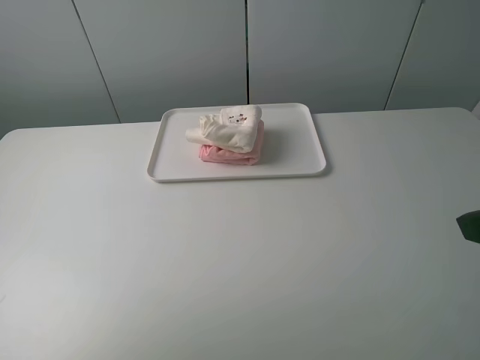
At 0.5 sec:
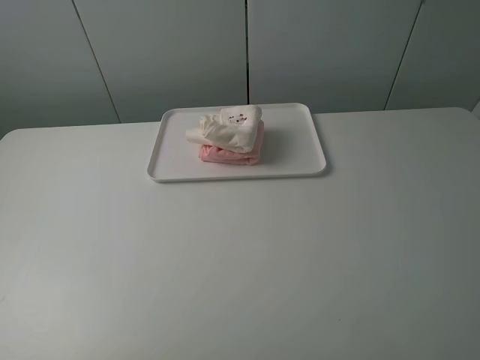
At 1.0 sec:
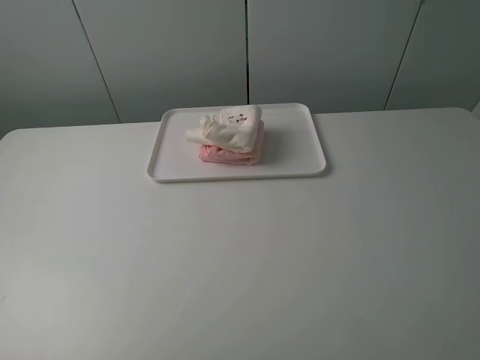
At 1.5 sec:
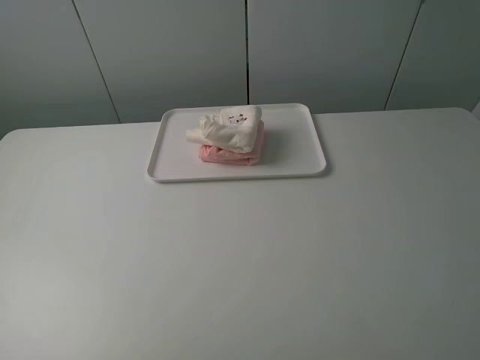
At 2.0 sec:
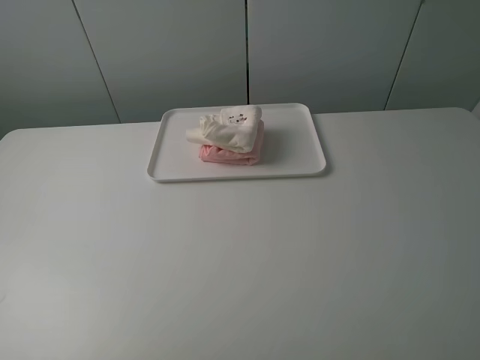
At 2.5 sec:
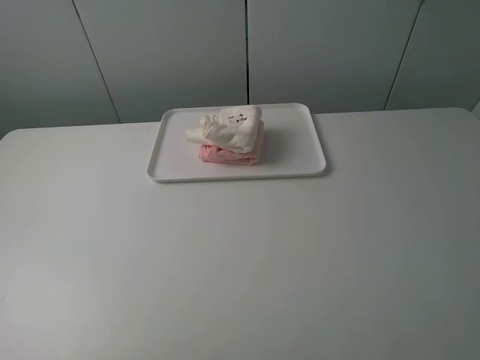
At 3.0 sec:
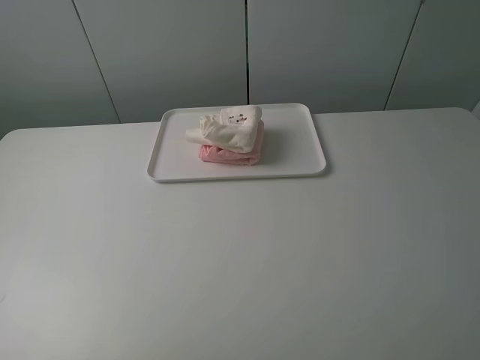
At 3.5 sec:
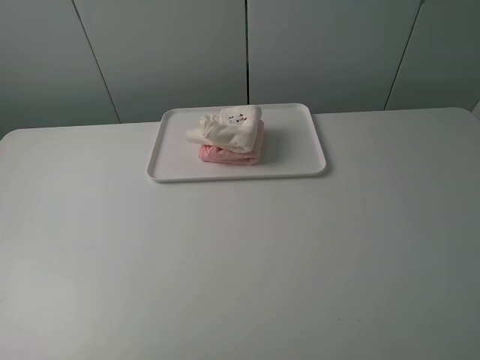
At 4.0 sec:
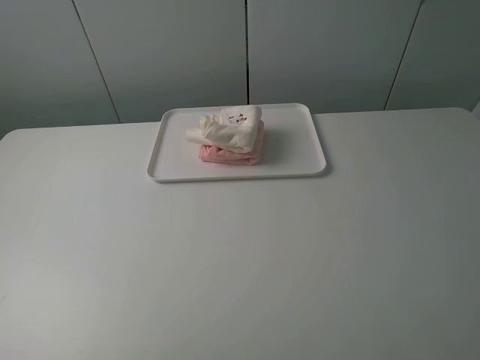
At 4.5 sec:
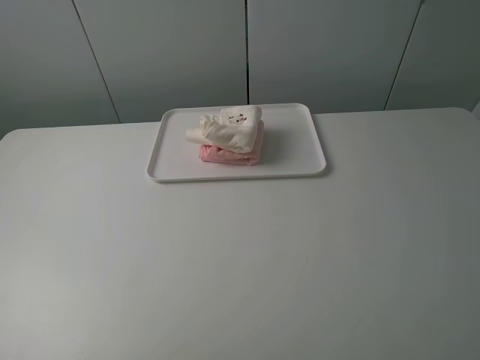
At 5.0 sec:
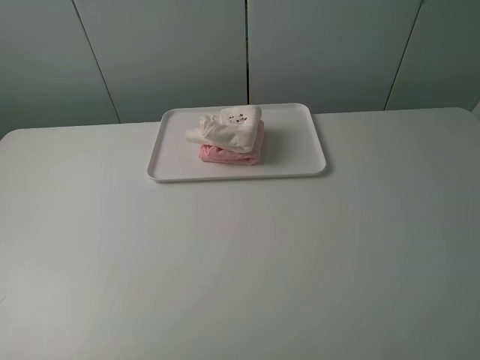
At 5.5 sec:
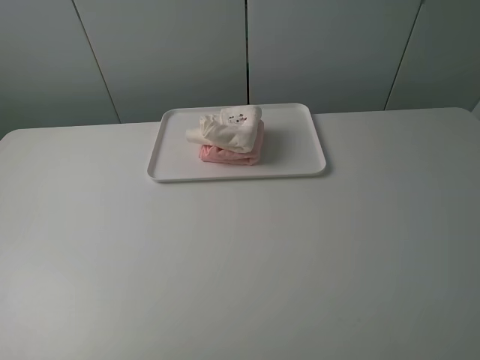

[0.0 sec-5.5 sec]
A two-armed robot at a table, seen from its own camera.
Task of the whole recording: fold one of the towels by two grippers and place it on the tray,then fold another towel by two grippers and place it on the folded towel.
0.0 sec to 2.0 sec: Both grippers travel together backward, some 10 cm.
3.5 sec to 5.5 sec: Neither gripper changes place.

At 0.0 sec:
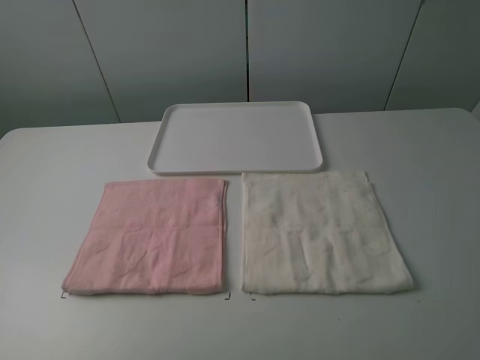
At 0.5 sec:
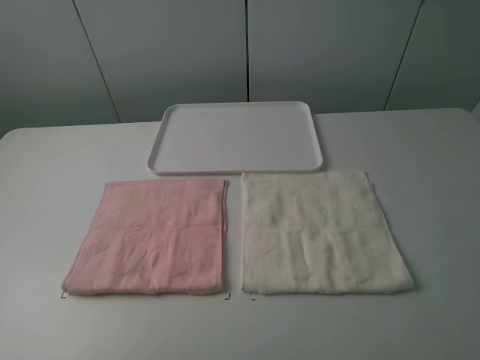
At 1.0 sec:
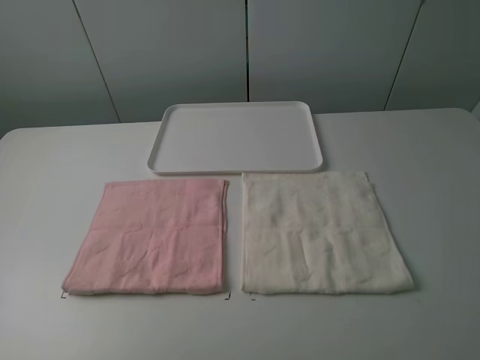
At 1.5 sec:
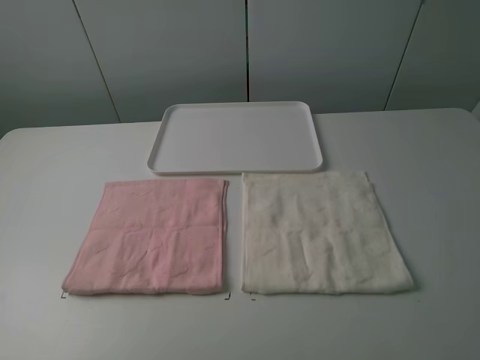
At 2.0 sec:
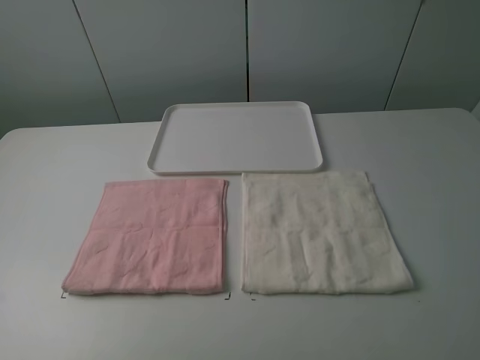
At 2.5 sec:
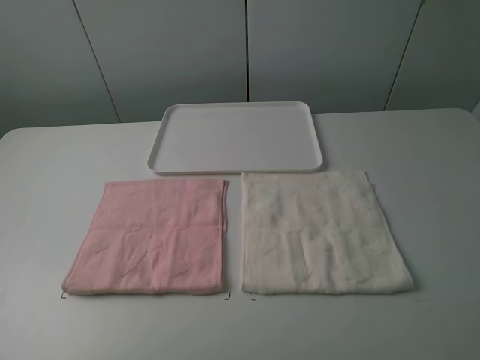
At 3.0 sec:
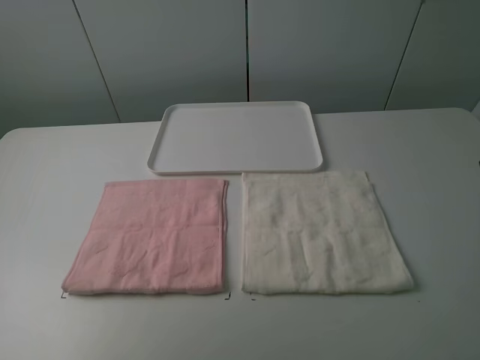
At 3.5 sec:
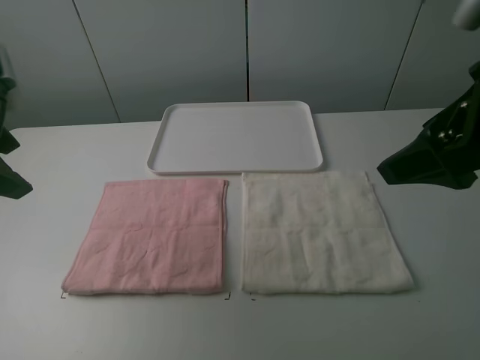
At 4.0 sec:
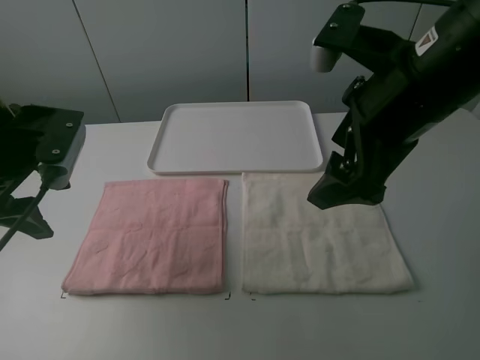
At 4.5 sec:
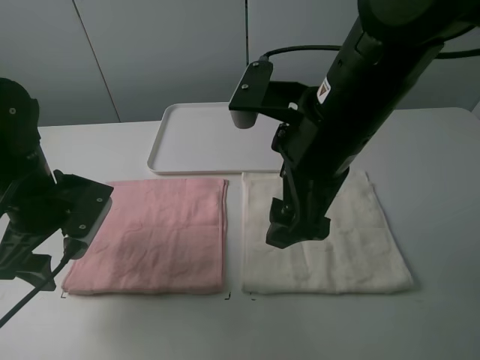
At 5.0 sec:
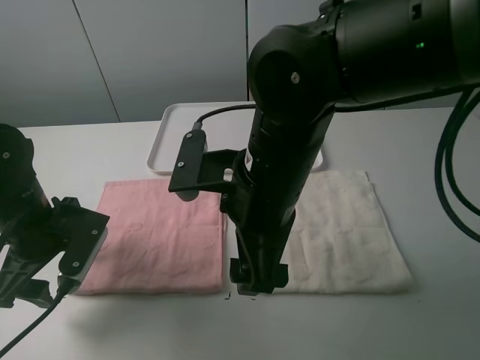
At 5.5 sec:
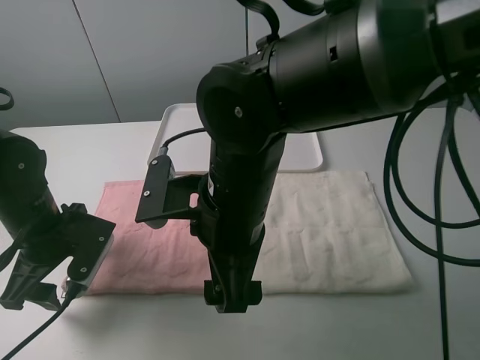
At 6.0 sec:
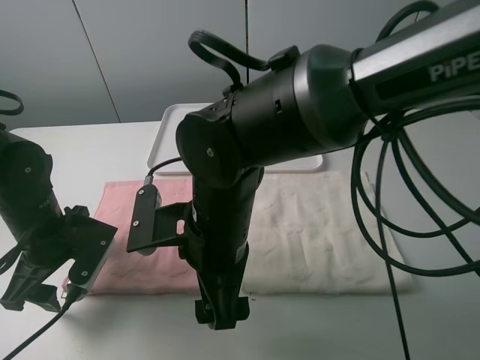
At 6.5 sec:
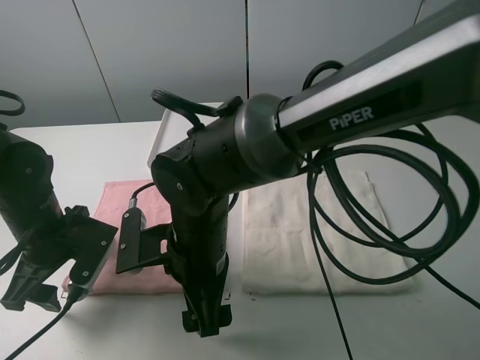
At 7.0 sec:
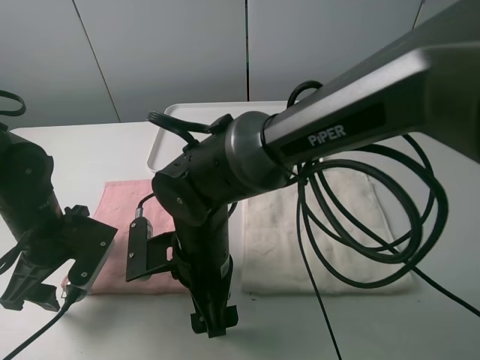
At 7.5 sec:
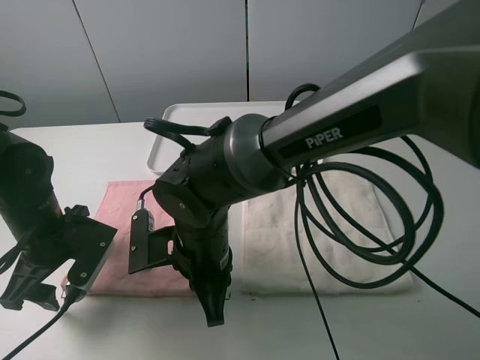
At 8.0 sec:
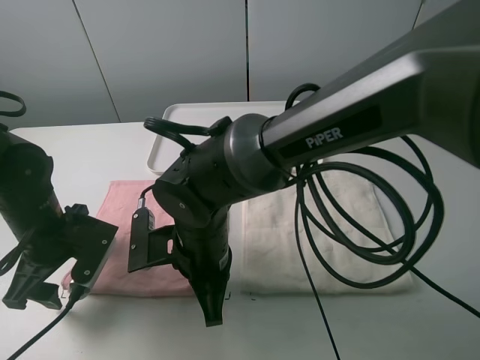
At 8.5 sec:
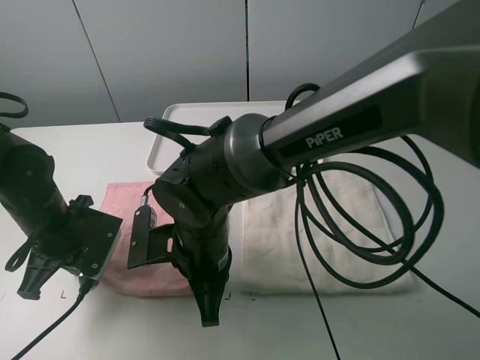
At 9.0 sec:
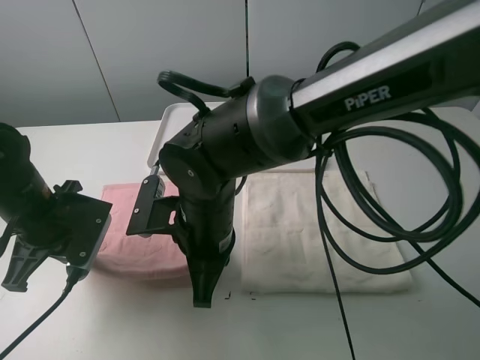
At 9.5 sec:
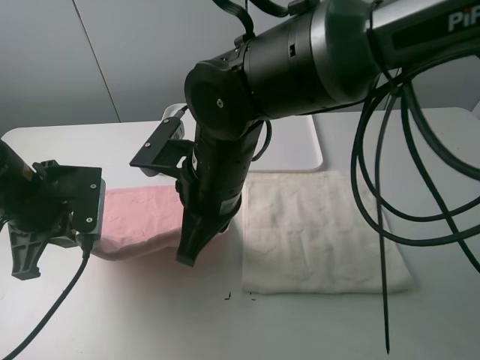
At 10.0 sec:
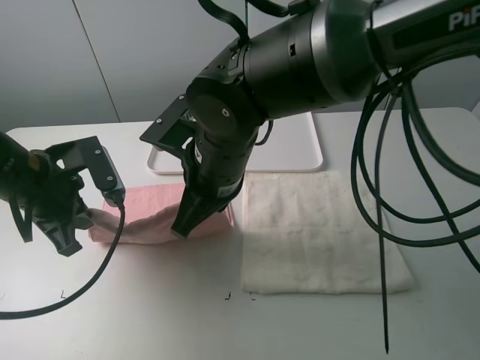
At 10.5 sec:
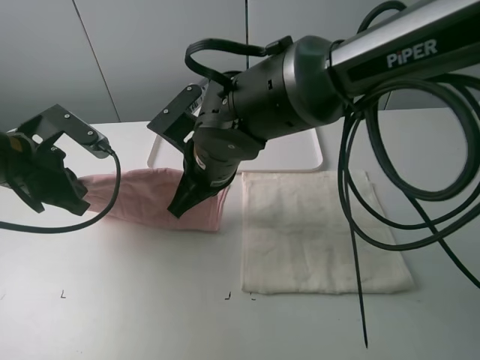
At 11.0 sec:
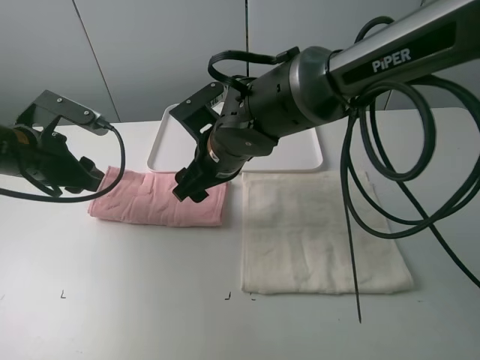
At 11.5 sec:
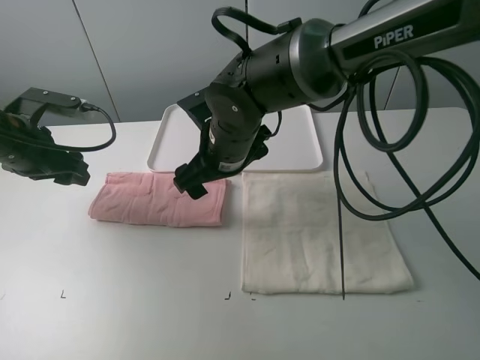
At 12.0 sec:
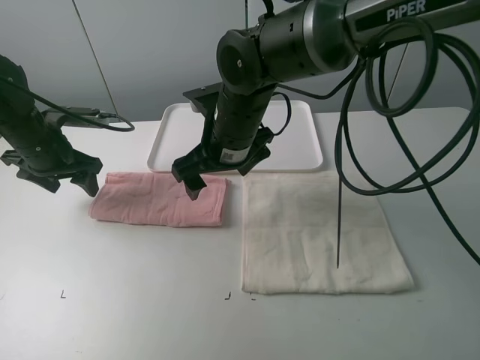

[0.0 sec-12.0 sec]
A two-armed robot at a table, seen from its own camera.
Task of the whole recording: fold one of the towels by two grippers and place it on the tray,then fold another towel by two grippers and place it on the folded towel.
Step, 0.0 sec to 8.0 sec: Grasp the pink towel with the left gripper.
Step, 8.5 sec to 11.0 sec: Fold the pink towel upwards with the left gripper.
0.0 sec to 2.0 sec: Both grippers stay put.
2.0 sec to 4.0 sec: The left gripper heads forward, covering approximately 25 cm. Meanwhile the right gripper heads forward and to the left, covering about 25 cm.
4.0 sec to 6.0 sec: The left gripper travels downward by about 10 cm; the right gripper moves to the left and downward, some 20 cm.
6.0 sec to 8.0 sec: The right gripper travels downward by some 5 cm, and closes.
8.0 sec to 10.0 sec: Both grippers travel together upward, roughly 10 cm. The left gripper closes up.
10.0 sec to 12.0 sec: The right gripper moves forward, about 5 cm, and opens. Meanwhile the left gripper goes roughly 15 cm forward and to the left, and opens up.

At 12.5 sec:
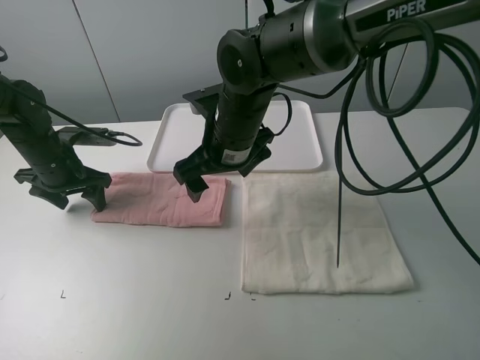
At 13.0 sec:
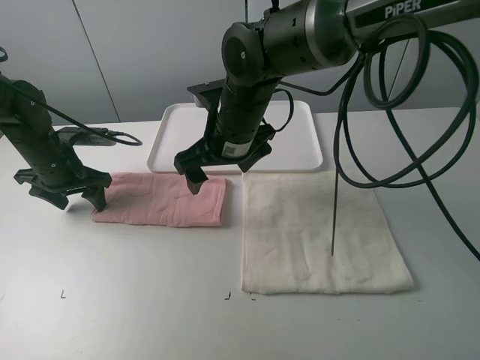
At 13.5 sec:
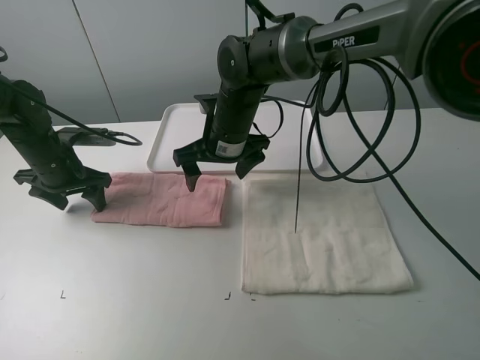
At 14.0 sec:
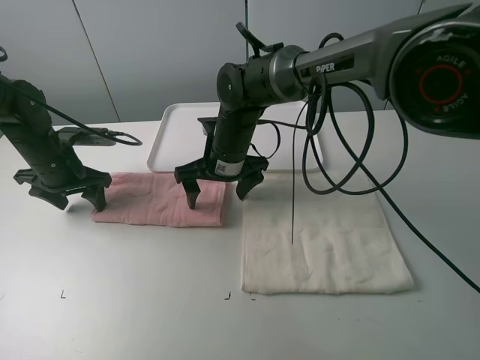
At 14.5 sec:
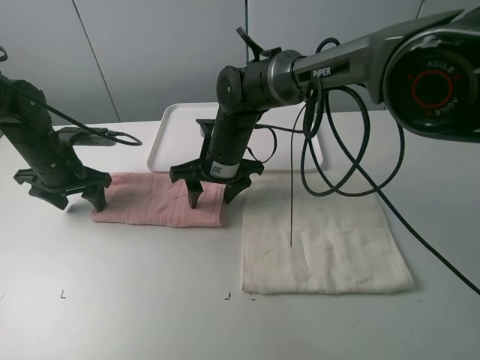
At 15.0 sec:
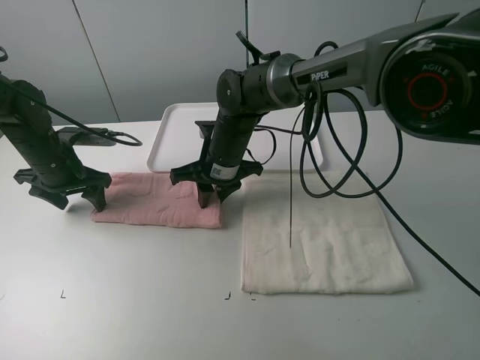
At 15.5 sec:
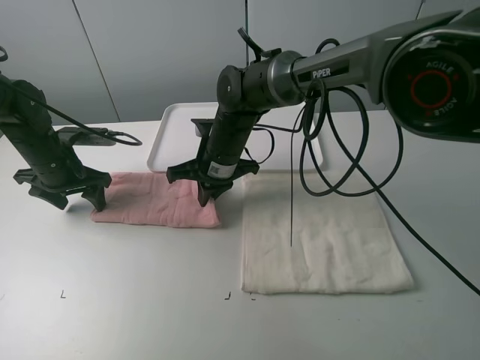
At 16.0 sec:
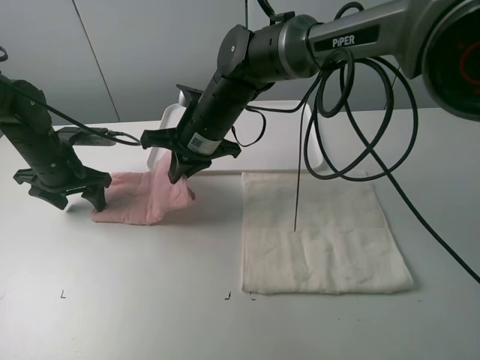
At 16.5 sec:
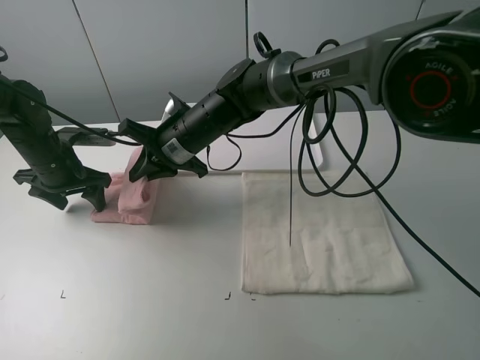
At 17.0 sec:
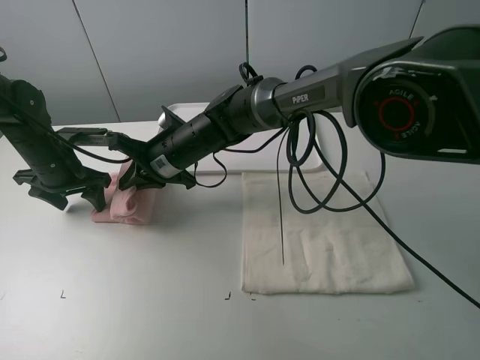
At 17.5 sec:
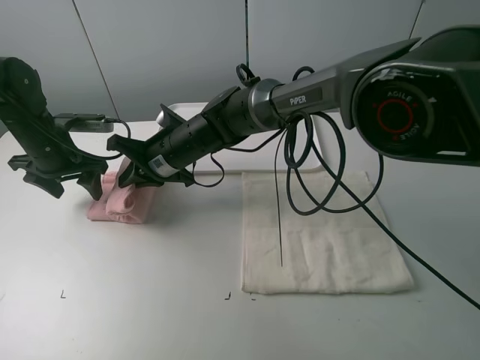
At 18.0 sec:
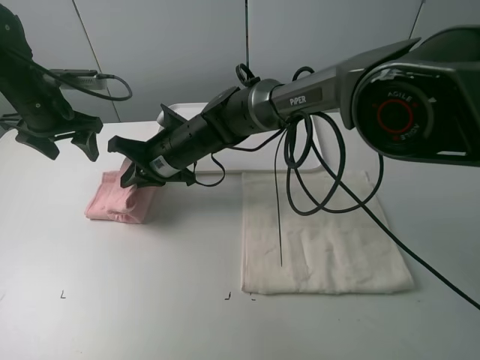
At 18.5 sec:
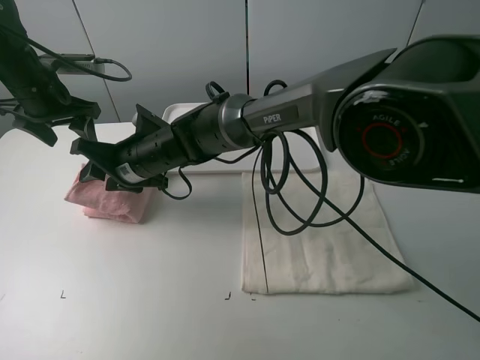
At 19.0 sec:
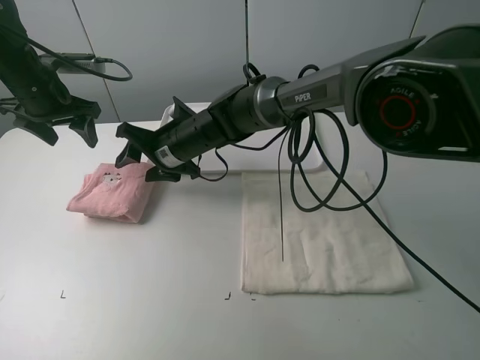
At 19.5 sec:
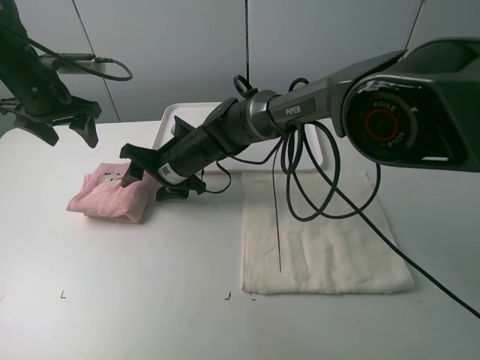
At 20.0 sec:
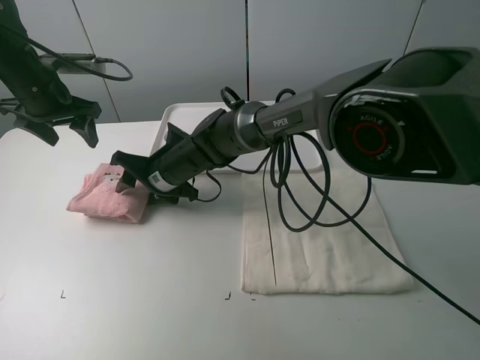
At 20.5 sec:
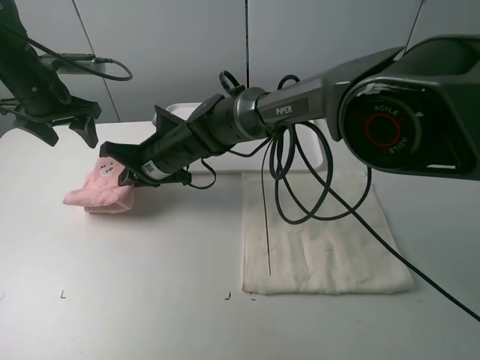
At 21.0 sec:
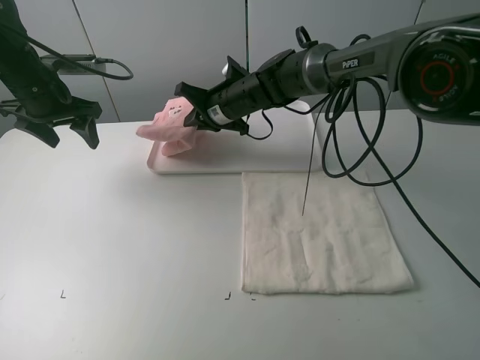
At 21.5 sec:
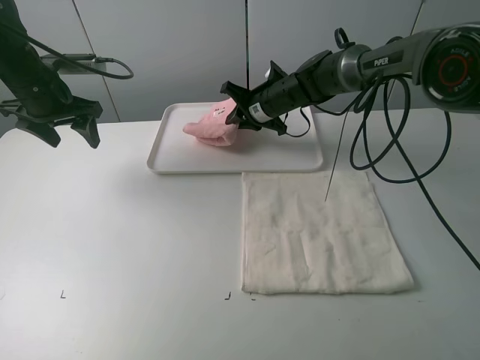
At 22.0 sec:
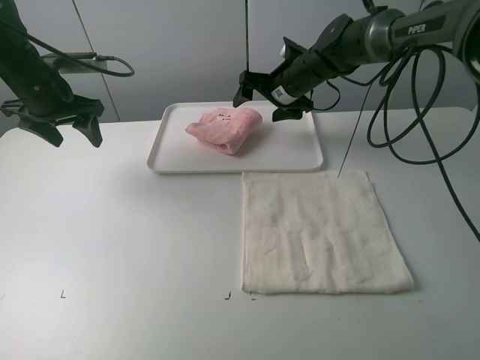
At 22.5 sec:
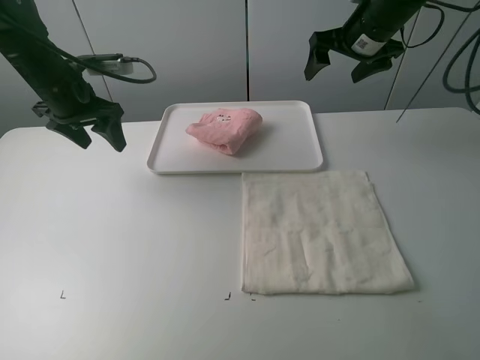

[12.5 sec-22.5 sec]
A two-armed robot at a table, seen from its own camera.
Task of the whole recording: fold one of the towels by two grippers and place it on the tray,then fold another towel by two grippers and place it on the folded towel.
Step, 13.0 sec to 15.0 sec: Grasp the pink towel with the right gripper.
Step, 15.5 sec to 18.5 sec: Fold the pink towel from right to left with right gripper.
Step, 19.0 sec to 20.0 sec: Grasp the pink towel with the right gripper.
Step, 20.5 sec to 22.0 sec: Move the pink towel to the plate with the right gripper.
12.5 sec to 14.5 sec: The right gripper shifts roughly 10 cm downward and forward.
14.5 sec to 16.5 sec: The right gripper changes place by some 5 cm, and closes its fingers.
16.5 sec to 18.5 sec: The left gripper goes some 10 cm upward. The right gripper goes roughly 5 cm to the left, and opens its fingers.
18.5 sec to 20.5 sec: The right gripper closes.
20.5 sec to 22.5 sec: The right gripper shifts about 35 cm to the right and upward, and opens up.